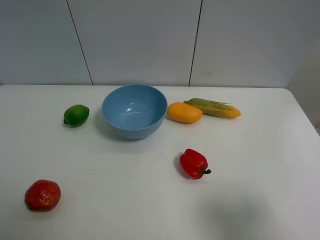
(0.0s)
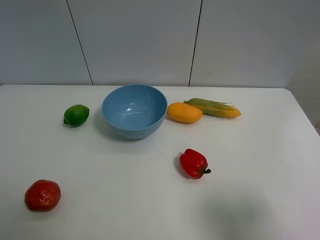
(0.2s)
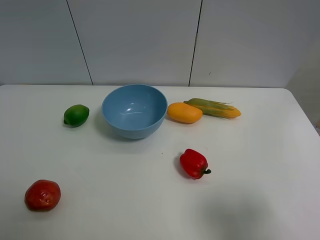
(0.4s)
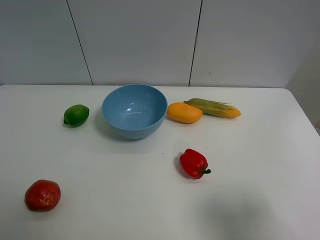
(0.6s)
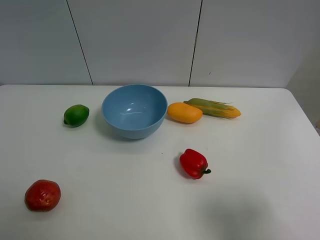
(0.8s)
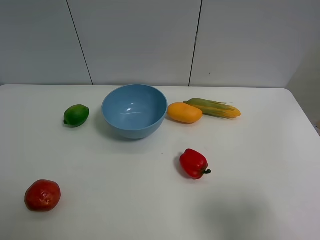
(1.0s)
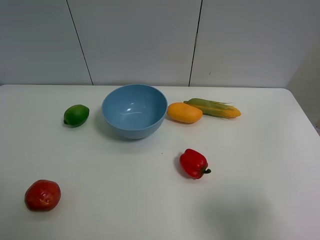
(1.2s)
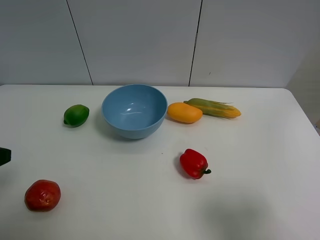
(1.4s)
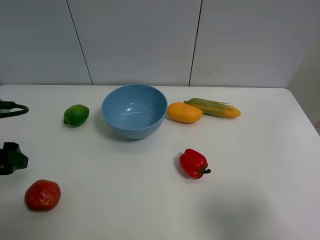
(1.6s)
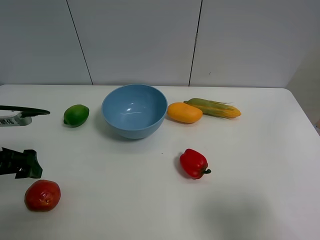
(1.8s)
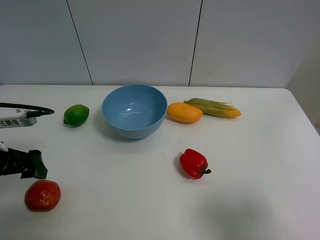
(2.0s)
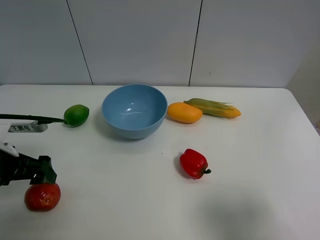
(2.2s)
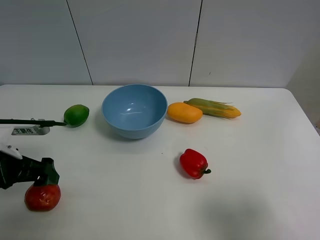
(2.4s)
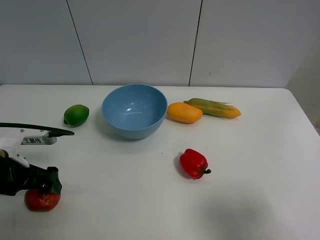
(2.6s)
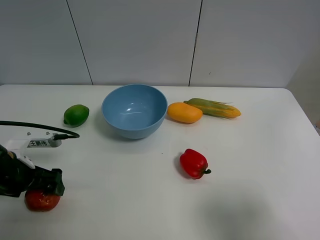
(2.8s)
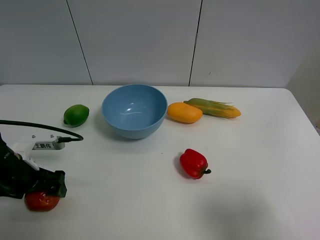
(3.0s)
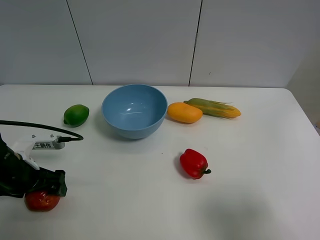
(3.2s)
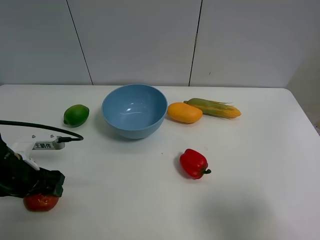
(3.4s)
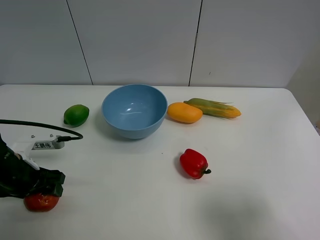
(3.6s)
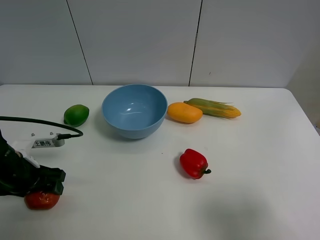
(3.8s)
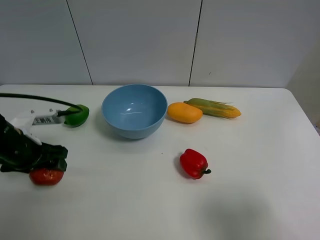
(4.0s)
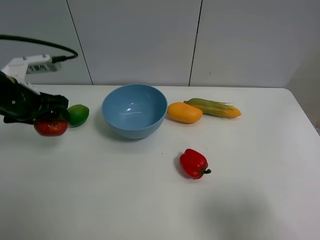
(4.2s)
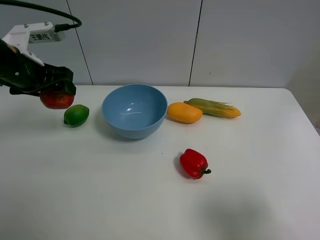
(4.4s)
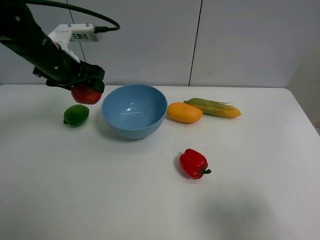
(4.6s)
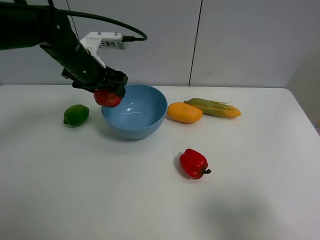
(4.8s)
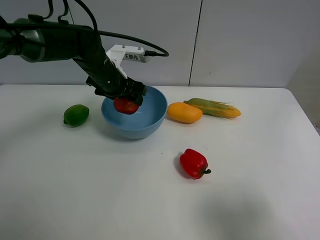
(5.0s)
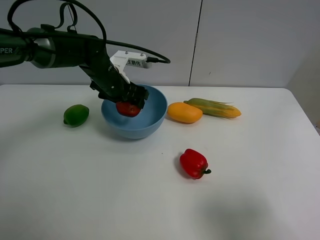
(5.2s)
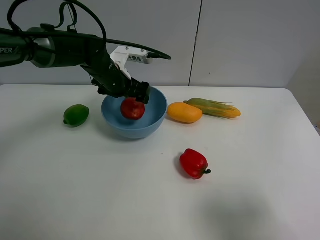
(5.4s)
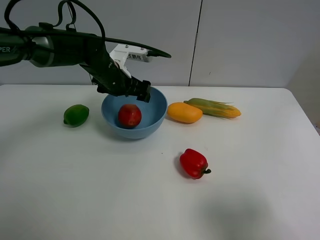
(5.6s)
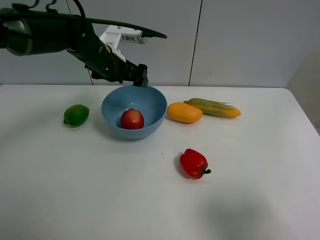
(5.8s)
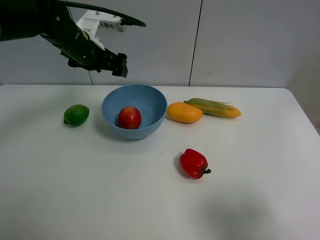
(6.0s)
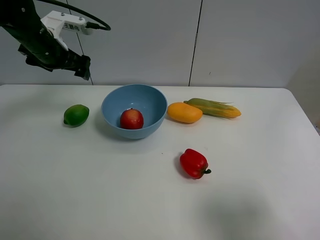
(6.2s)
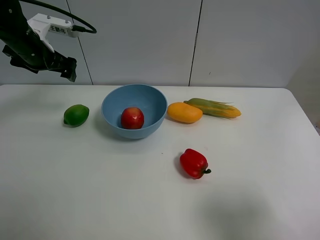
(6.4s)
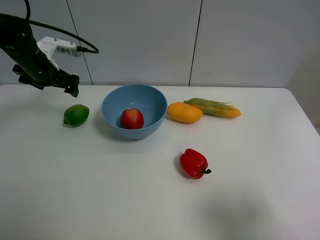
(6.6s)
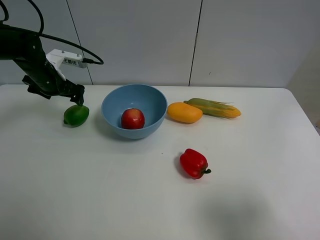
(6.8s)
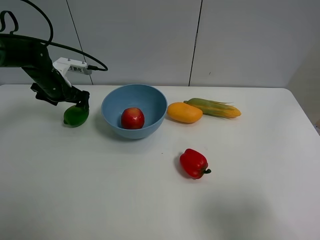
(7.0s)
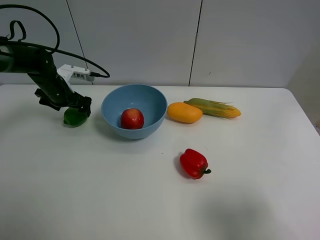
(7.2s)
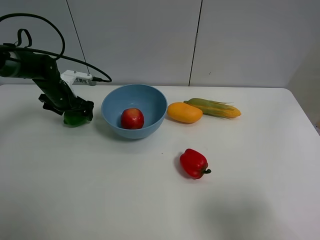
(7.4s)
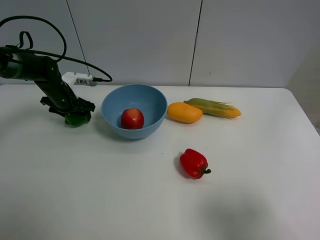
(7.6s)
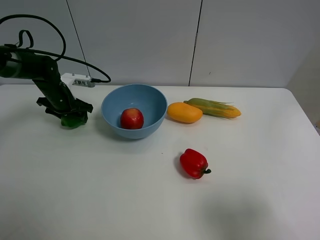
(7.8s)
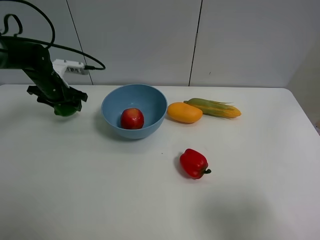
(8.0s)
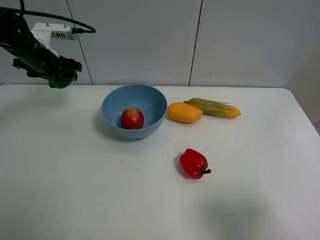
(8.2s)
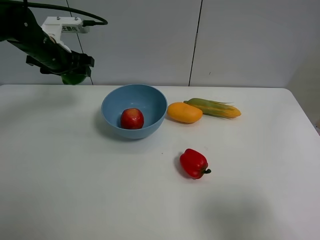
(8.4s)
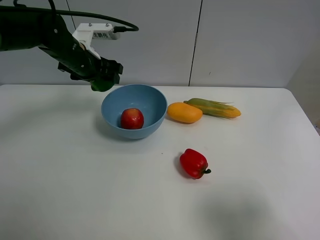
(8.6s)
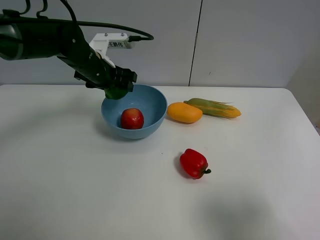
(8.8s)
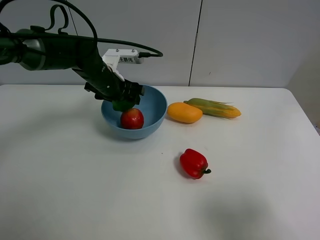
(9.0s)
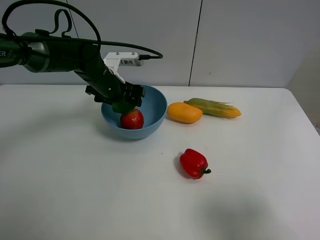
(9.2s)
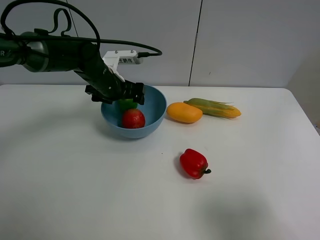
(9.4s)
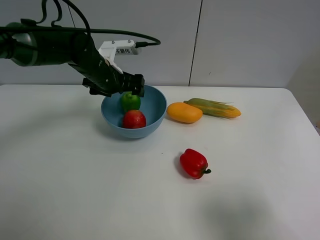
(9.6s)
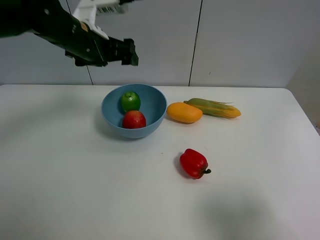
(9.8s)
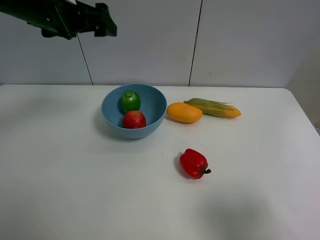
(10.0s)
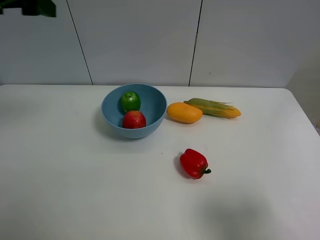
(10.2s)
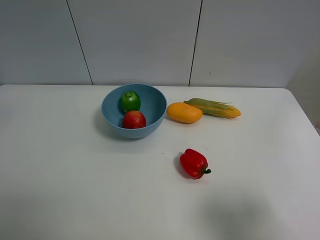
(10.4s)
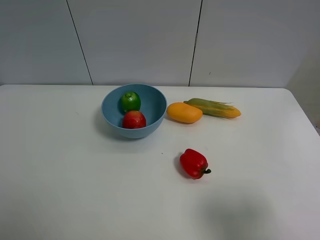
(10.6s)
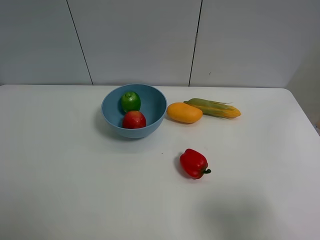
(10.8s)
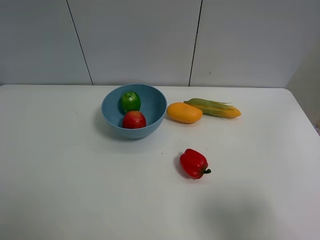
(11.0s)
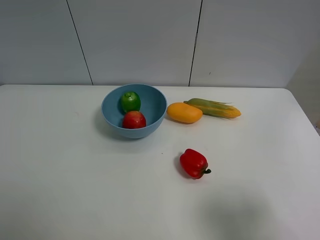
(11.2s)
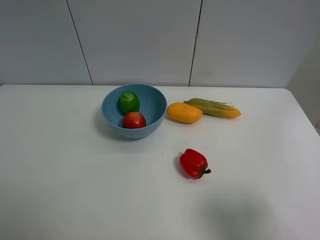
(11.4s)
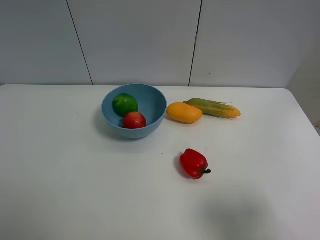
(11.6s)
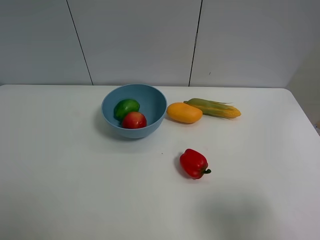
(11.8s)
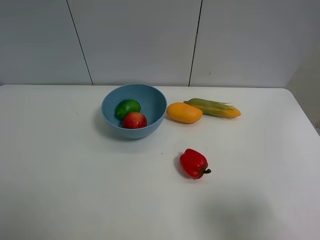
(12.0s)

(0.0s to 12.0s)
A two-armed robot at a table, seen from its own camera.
Task of the whole recording: Put the three fruits on the table into a bowl.
Step, 0.0s - 3.4s: Grasp the pomegranate with left gripper.
Step, 3.6s - 5.6s: Place the pomegranate in the blue bowl with left gripper.
Step, 5.8s - 7.6s: Grasp the green lemon with left gripper.
Step, 7.8s - 9.6s: Place the green lemon in the blue bowl with left gripper.
0.0s - 1.6s: The left gripper goes some 15 cm forward.
1.6s - 3.0s: The left gripper moves downward, some 10 cm.
3.0s - 4.4s: The left gripper heads upward and forward, covering about 20 cm, and closes its fingers.
4.4s - 6.0s: The left gripper moves to the right and forward, approximately 10 cm, and opens its fingers.
6.0s - 7.6s: The left gripper moves downward and to the left, some 20 cm, and closes up.
7.6s - 9.0s: The left gripper moves to the right and upward, approximately 15 cm.
9.0s - 10.4s: The left gripper travels upward, to the left and backward by some 35 cm, and opens up.

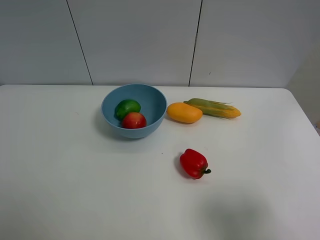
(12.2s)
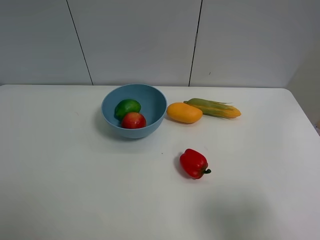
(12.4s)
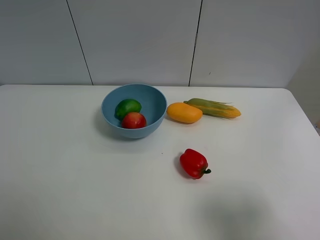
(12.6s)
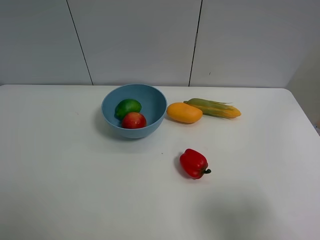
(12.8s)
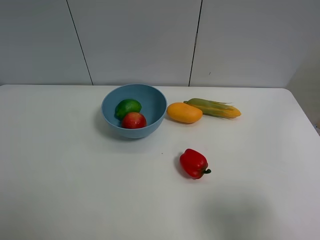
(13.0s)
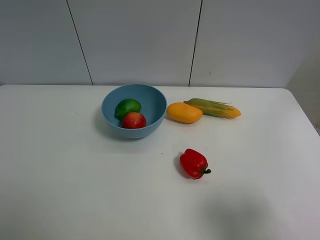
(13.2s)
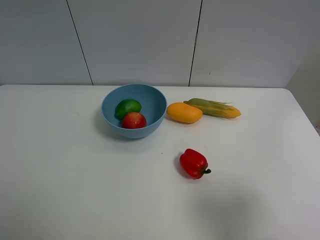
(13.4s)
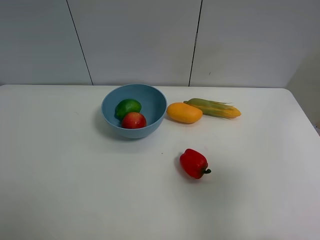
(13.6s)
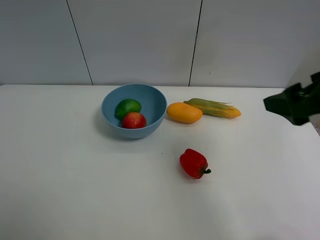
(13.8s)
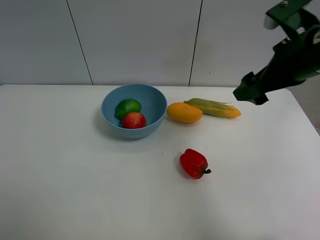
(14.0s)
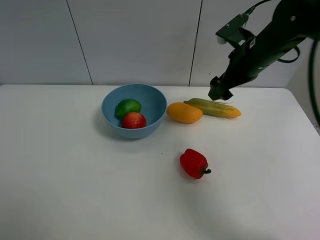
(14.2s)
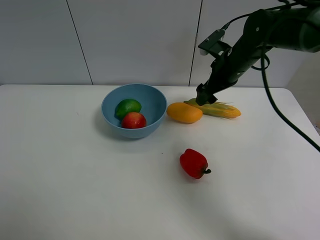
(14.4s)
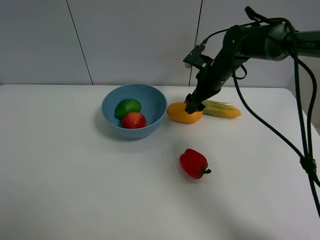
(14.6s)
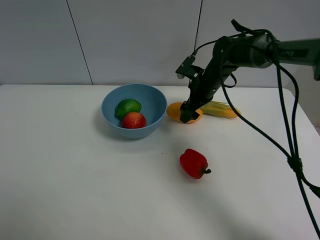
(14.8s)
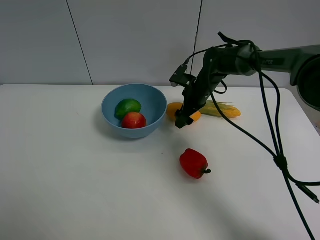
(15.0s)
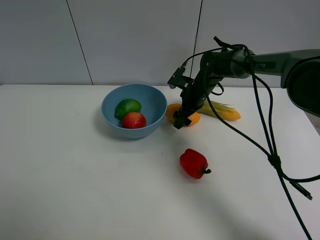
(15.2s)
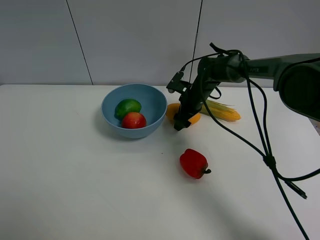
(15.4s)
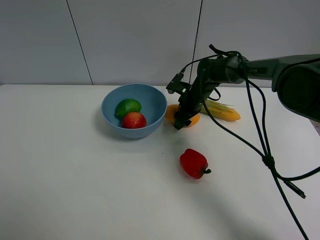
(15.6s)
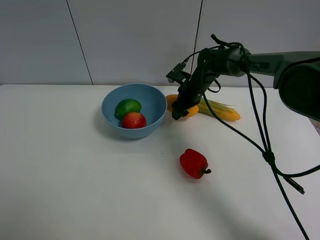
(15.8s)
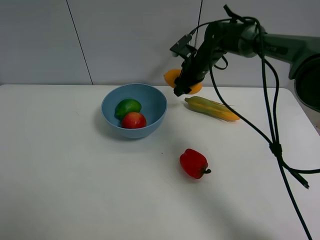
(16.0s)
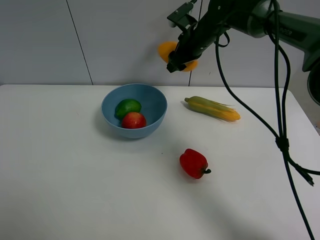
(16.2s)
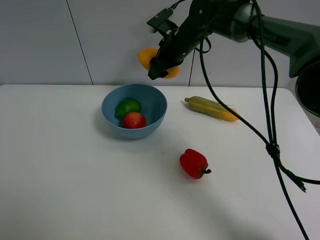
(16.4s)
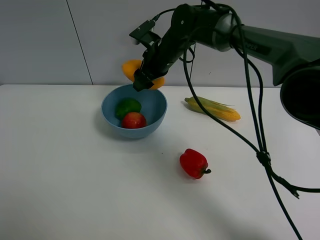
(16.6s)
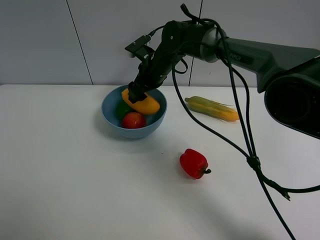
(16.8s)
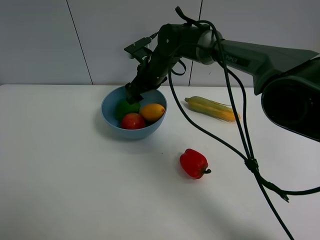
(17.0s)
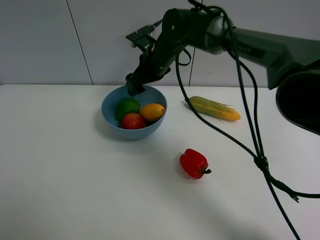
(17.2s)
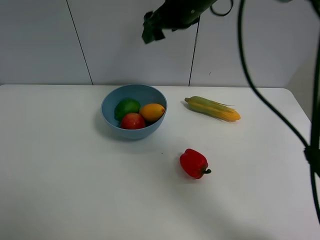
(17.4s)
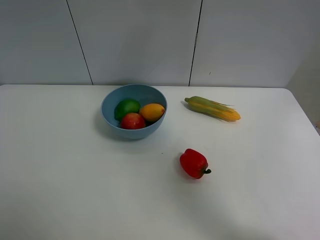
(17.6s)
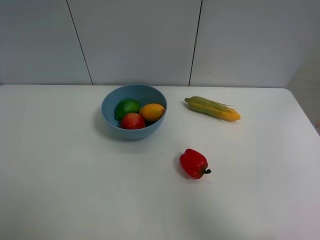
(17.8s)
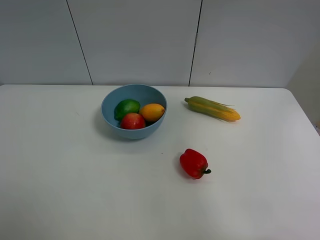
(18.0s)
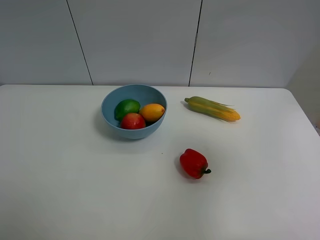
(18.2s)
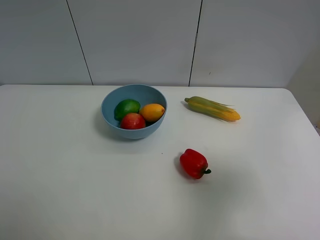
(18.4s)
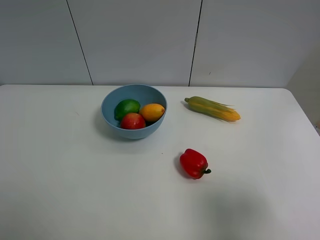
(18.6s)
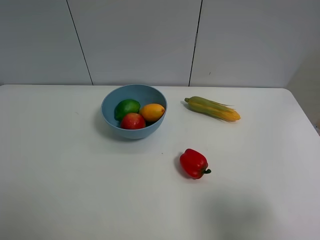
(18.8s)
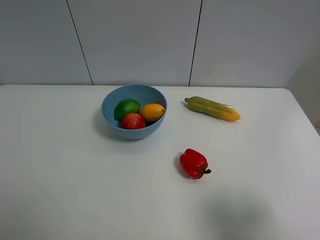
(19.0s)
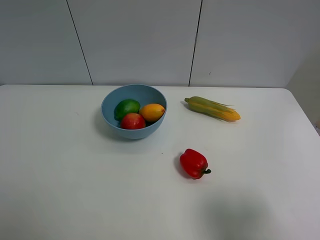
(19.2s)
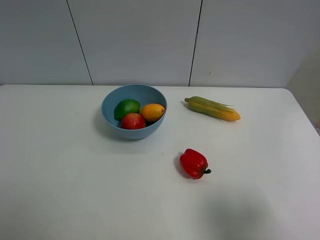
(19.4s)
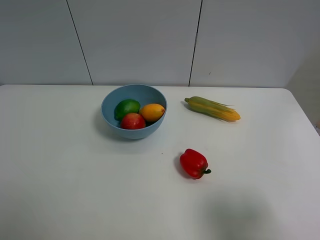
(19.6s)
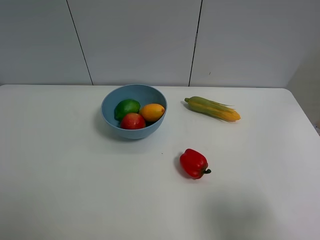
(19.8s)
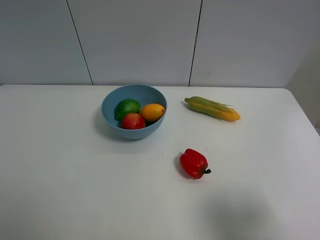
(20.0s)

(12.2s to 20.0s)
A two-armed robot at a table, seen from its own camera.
Task of the whole recording: Put the three fruits on the table into a bowl.
Step, 12.2s - 15.6s: Grasp the mango with right gripper.
Step, 15.8s - 17.0s: Place the mango in the blue bowl with right gripper.
12.2s - 13.8s: The right gripper goes roughly 20 cm forward.
13.8s - 15.4s: The right gripper shifts approximately 35 cm forward, downward and to the left, and closes up.
15.4s - 16.8s: The right gripper goes about 15 cm to the left and upward.
16.8s - 18.4s: The right gripper travels backward and to the right by roughly 50 cm.
18.4s - 20.0s: The right gripper moves downward, about 5 cm.
